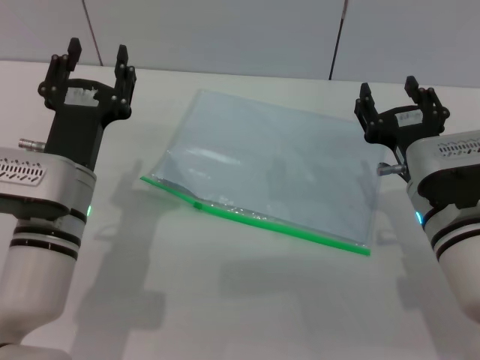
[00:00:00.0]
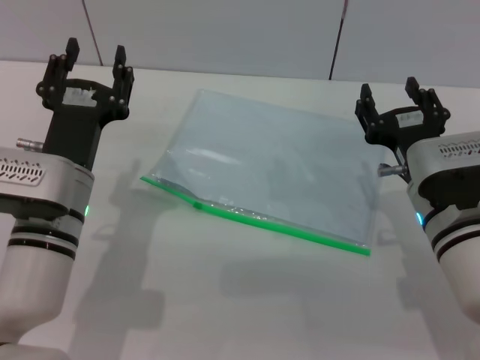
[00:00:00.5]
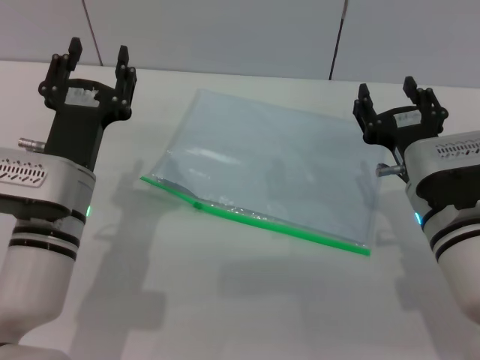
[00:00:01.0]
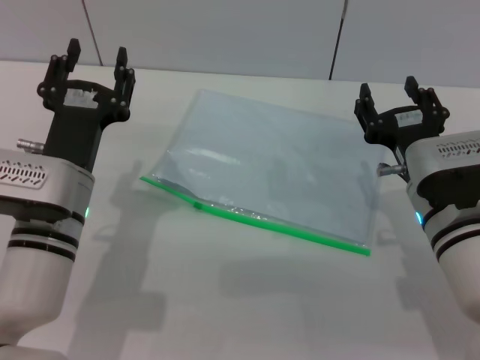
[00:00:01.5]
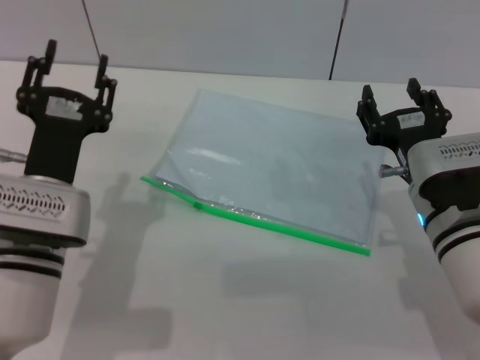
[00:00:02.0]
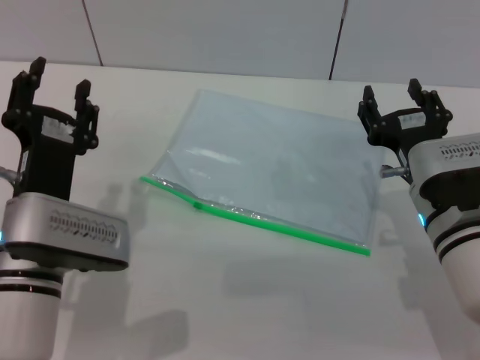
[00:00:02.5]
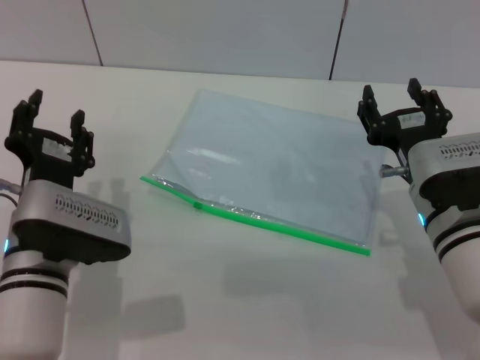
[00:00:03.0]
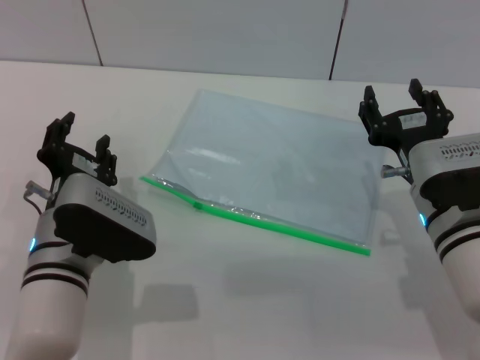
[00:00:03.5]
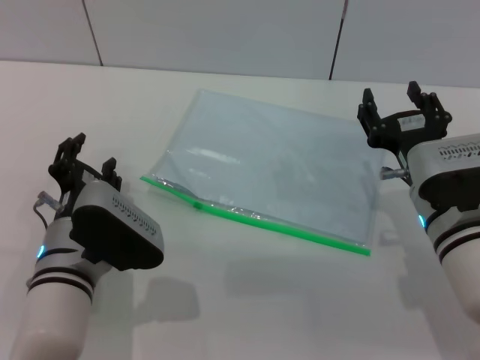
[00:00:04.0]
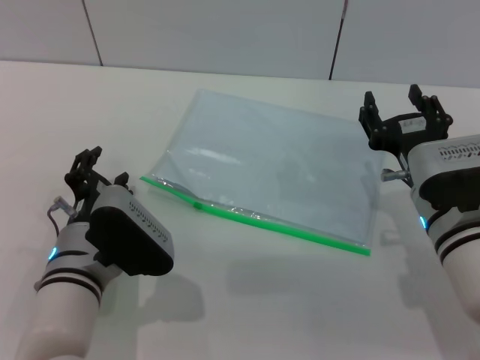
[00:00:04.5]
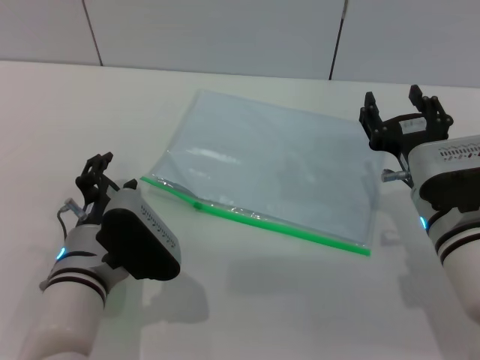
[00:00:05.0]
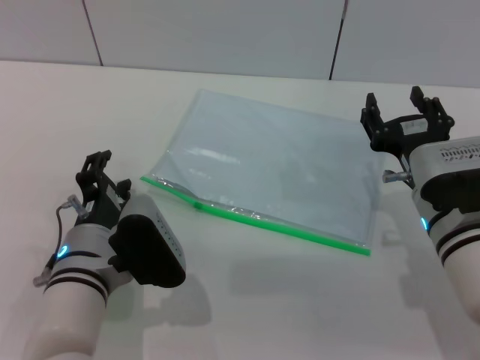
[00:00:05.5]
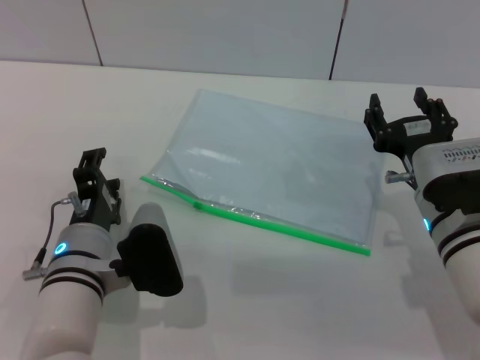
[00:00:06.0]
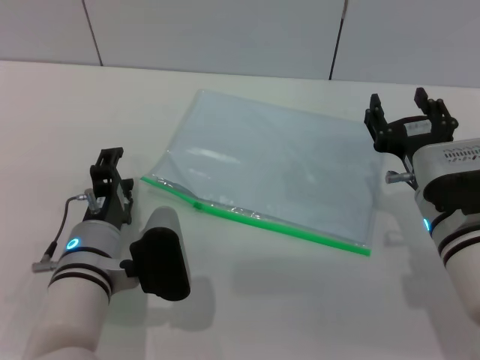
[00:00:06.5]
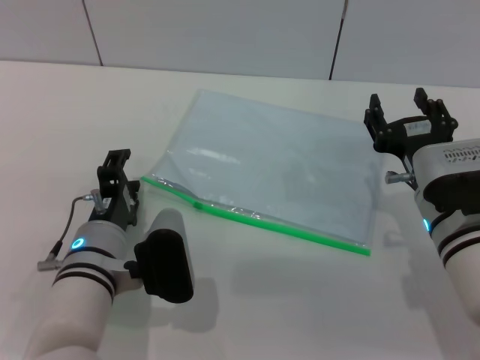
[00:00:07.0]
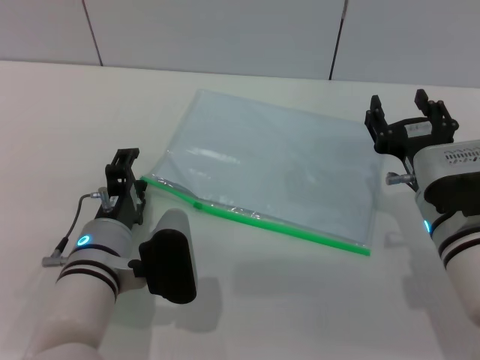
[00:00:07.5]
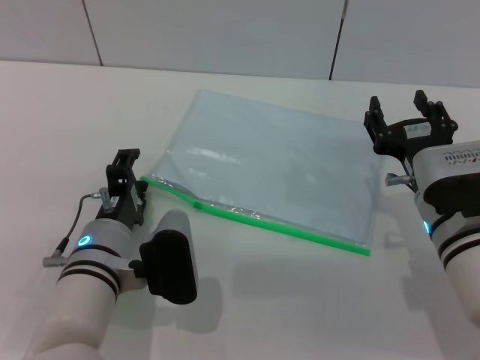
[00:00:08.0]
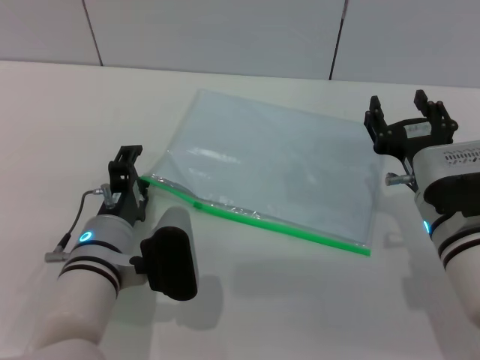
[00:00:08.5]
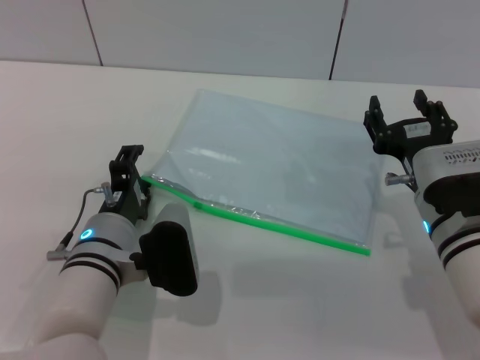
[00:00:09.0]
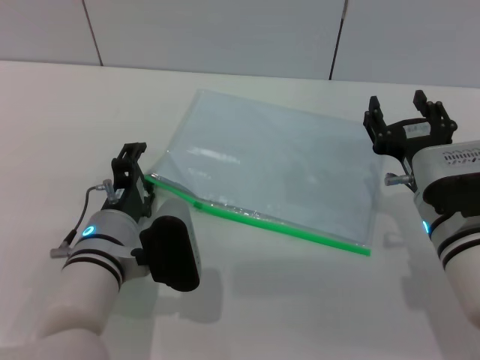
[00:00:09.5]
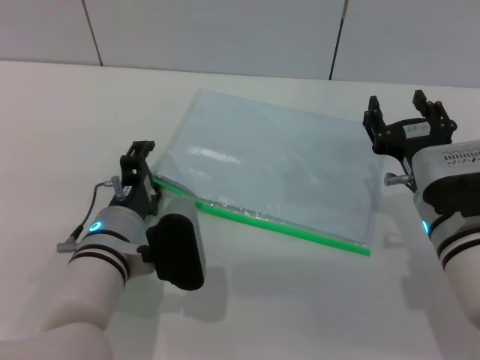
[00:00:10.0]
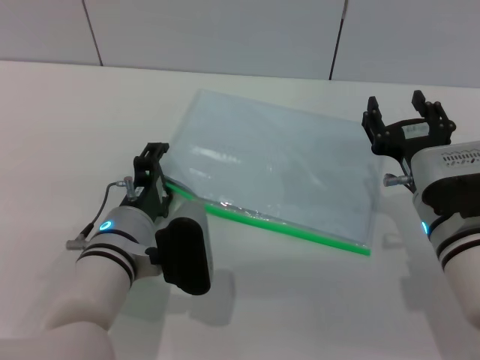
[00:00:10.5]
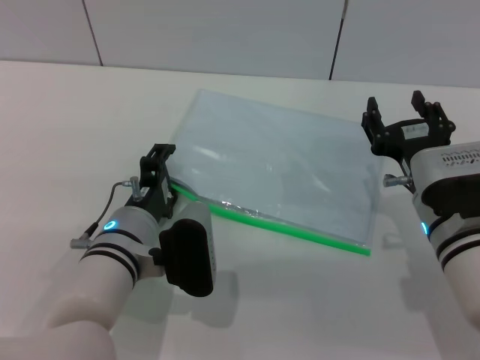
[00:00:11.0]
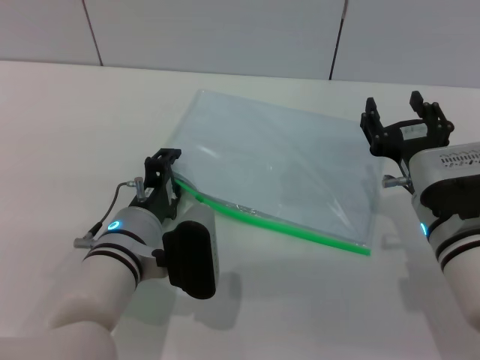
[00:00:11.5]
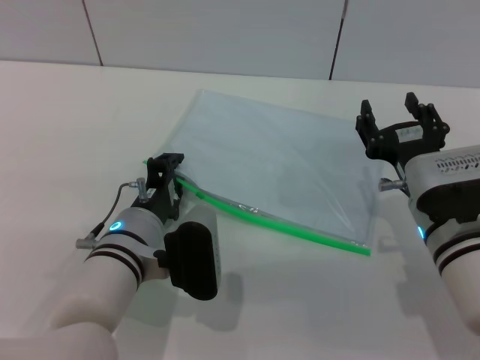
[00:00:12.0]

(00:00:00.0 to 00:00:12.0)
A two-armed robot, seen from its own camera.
00:00:00.0 - 00:00:02.0: The grippers stay close to where they were, moving slightly.
00:00:06.0 - 00:00:12.0: The grippers make only small movements.

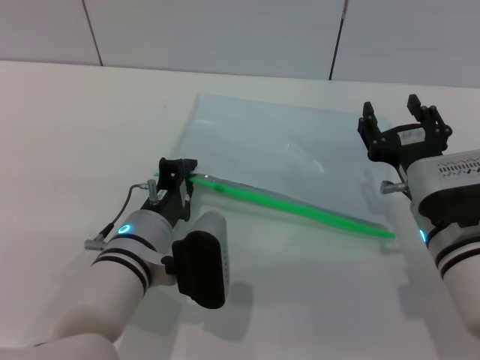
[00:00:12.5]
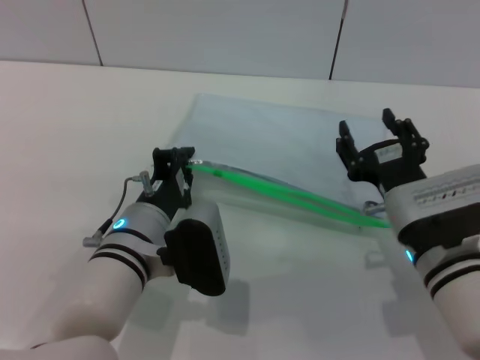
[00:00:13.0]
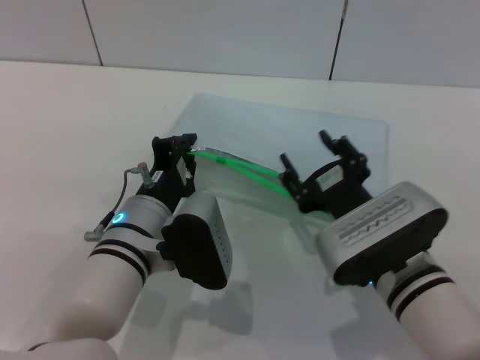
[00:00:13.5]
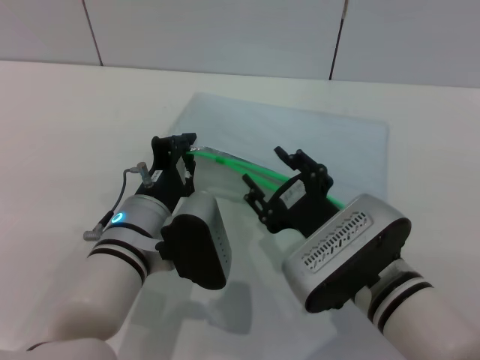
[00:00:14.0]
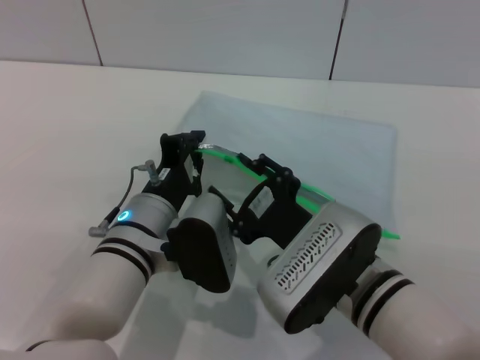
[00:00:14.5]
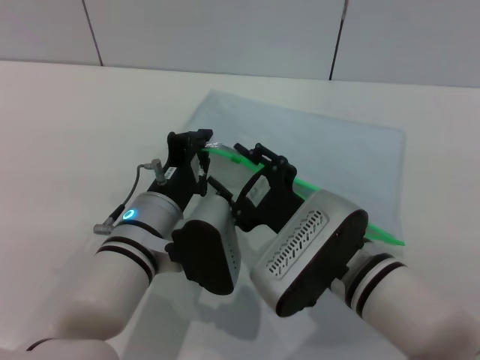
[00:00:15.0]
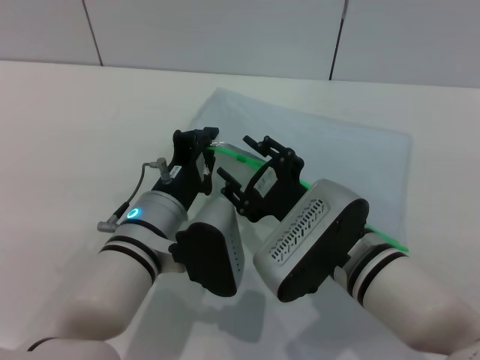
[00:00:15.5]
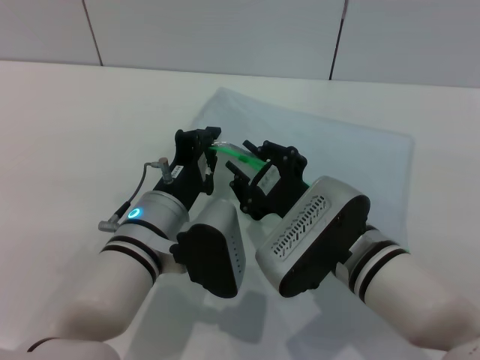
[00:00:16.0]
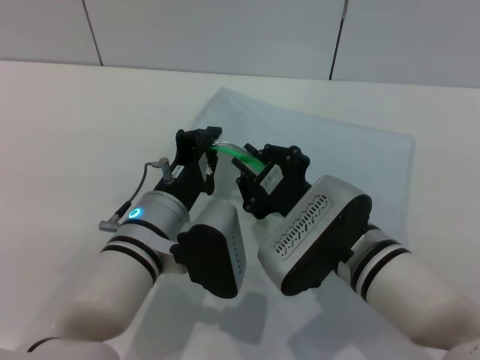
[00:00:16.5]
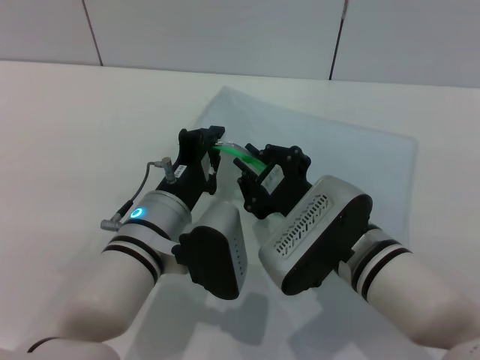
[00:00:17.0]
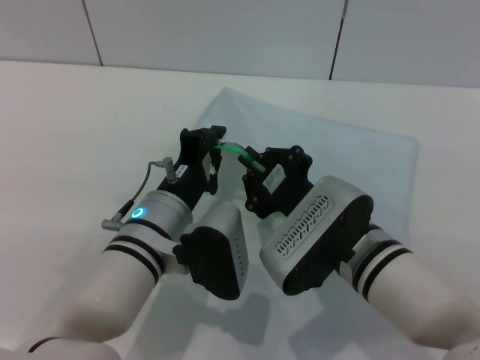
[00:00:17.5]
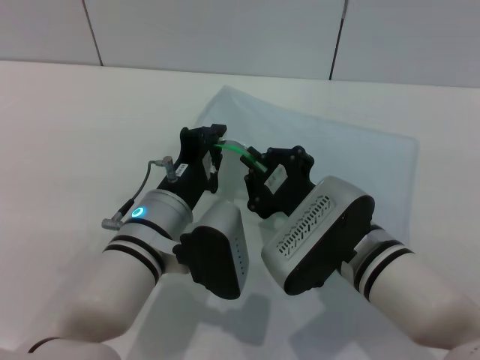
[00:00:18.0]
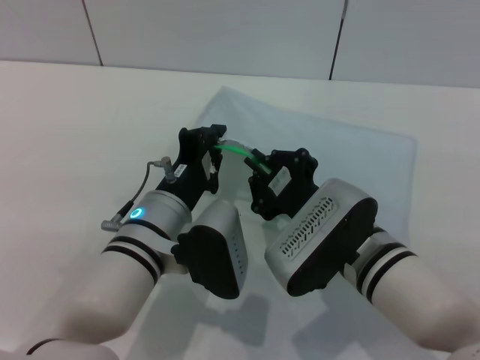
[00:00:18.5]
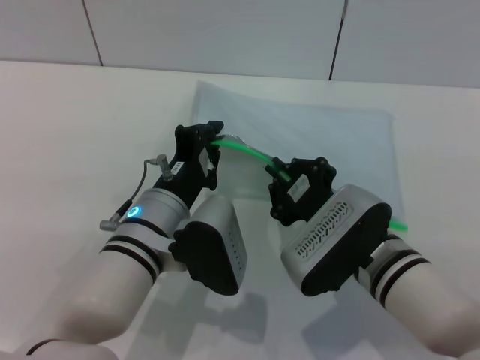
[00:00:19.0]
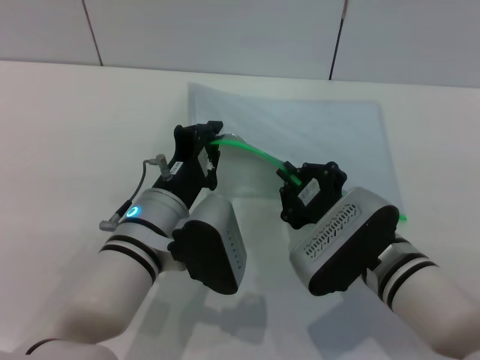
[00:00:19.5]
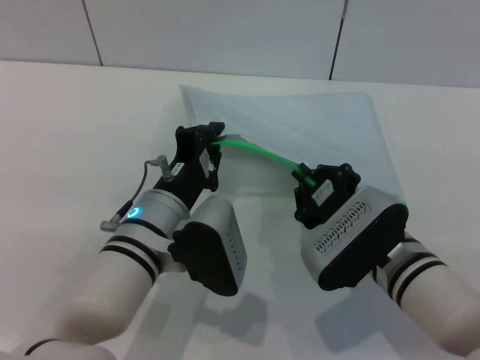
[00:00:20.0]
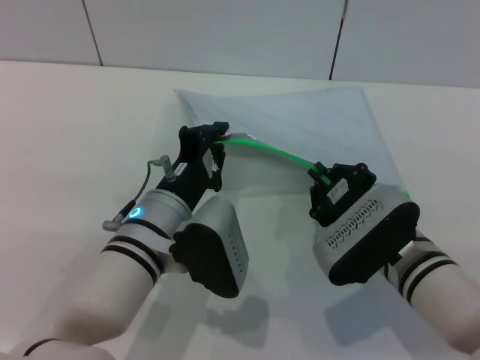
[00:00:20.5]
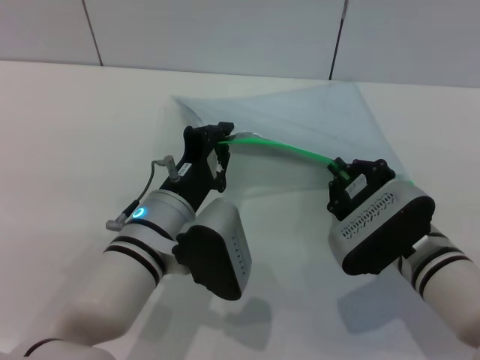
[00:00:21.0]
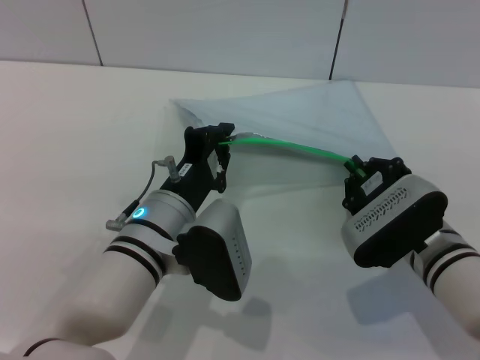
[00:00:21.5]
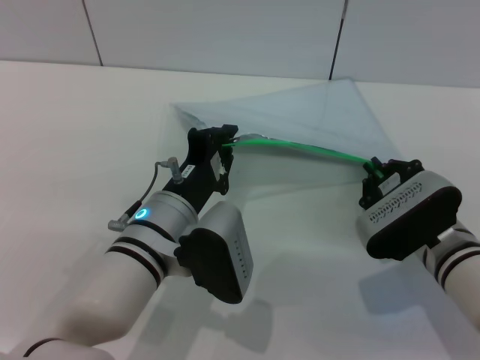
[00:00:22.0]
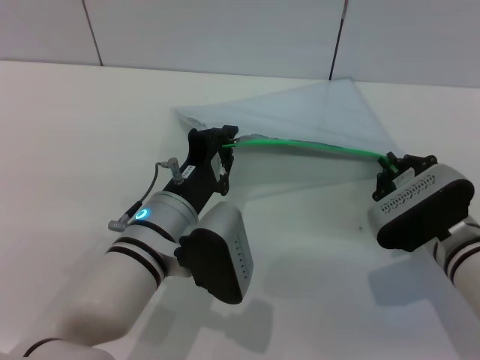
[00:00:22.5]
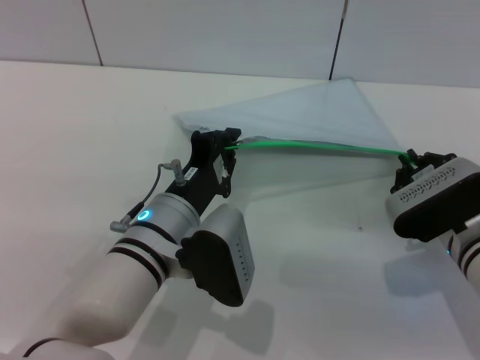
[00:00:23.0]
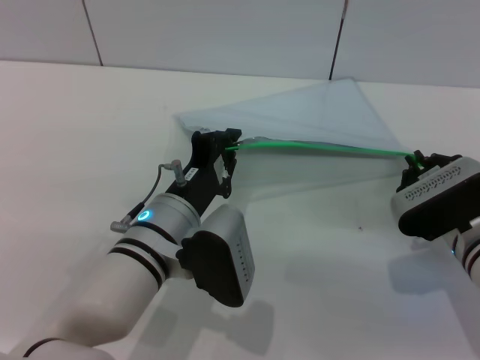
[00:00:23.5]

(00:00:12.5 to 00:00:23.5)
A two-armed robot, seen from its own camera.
00:00:12.5 - 00:00:14.5: The right gripper shifts about 10 cm to the left and backward.
00:00:14.5 - 00:00:16.0: The grippers stay close to where they were, moving slightly.
00:00:16.0 - 00:00:18.0: The right gripper closes up.
00:00:18.0 - 00:00:20.0: The grippers make only small movements.
00:00:20.0 - 00:00:21.5: The grippers make only small movements.
00:00:21.5 - 00:00:23.5: The right gripper ends up about 5 cm from where it was.

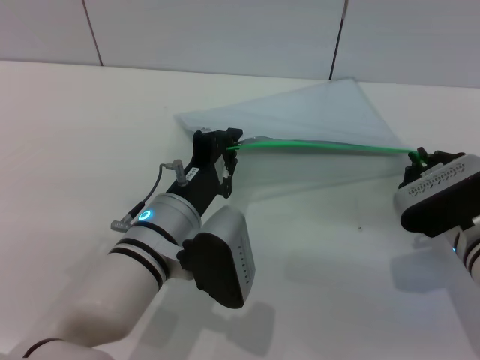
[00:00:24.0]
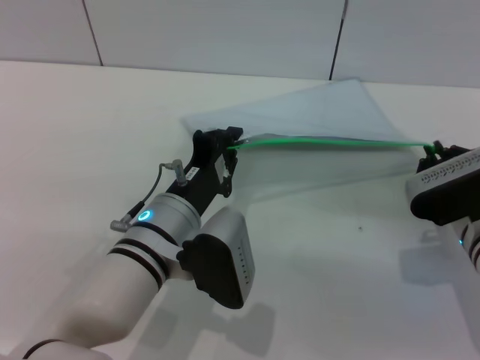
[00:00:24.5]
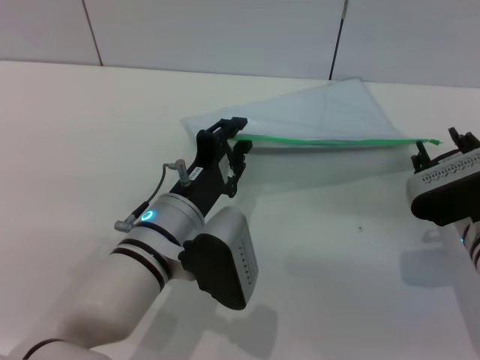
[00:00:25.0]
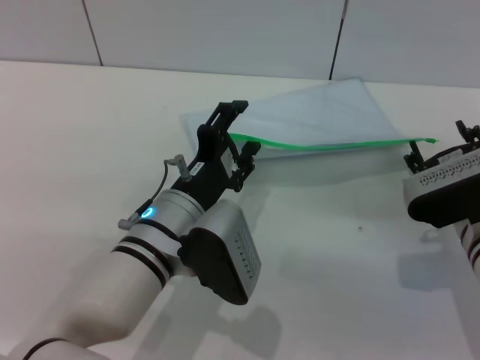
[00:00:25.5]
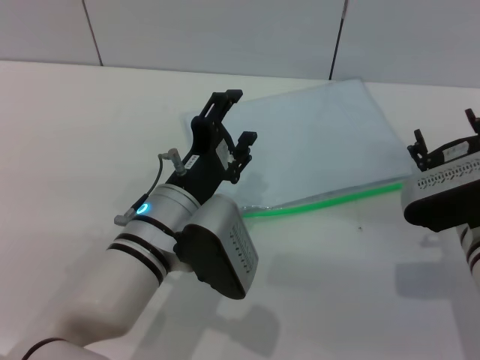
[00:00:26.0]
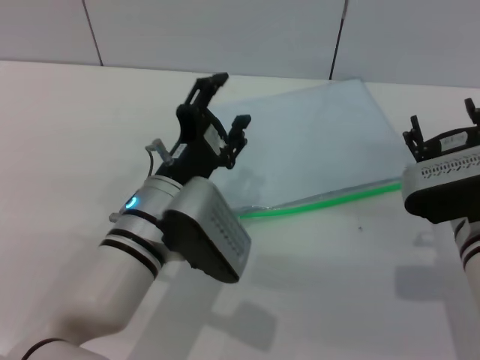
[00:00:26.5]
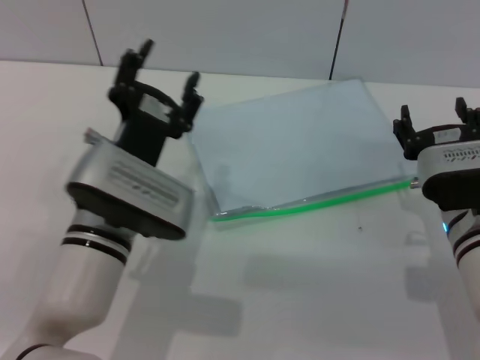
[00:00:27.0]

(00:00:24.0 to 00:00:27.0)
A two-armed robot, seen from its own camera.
Step, 00:00:25.5 - 00:00:26.5: Place the transparent plastic bag.
00:00:24.0 - 00:00:25.5: The right gripper opens its fingers; the left gripper opens.
